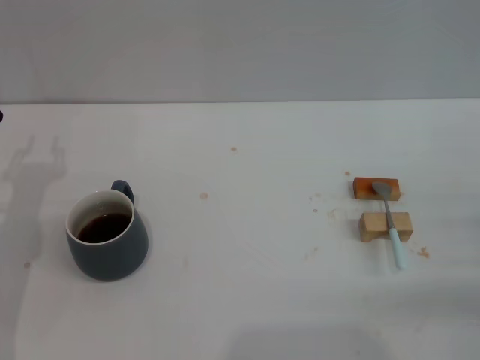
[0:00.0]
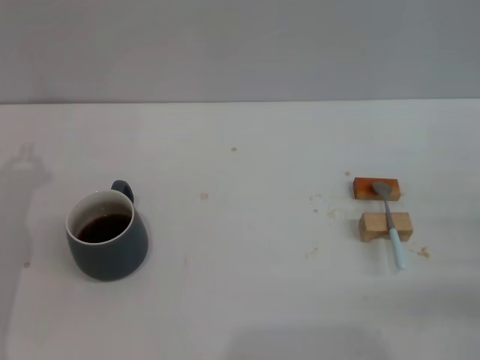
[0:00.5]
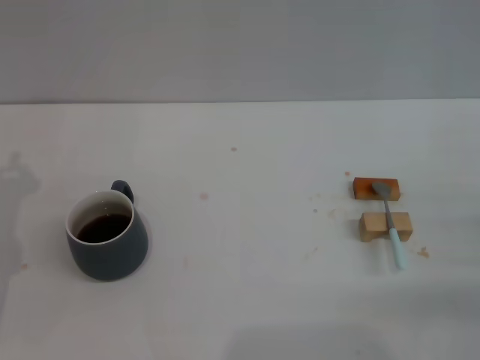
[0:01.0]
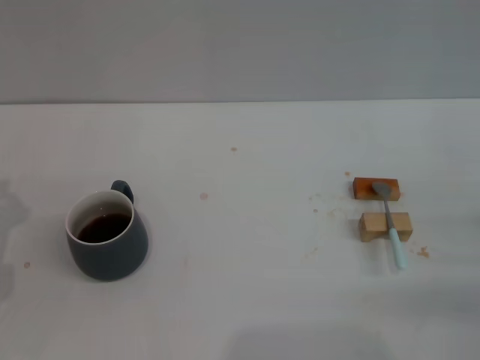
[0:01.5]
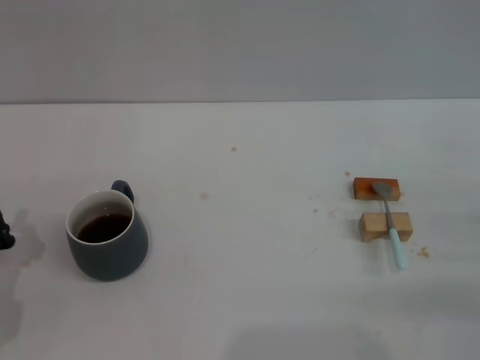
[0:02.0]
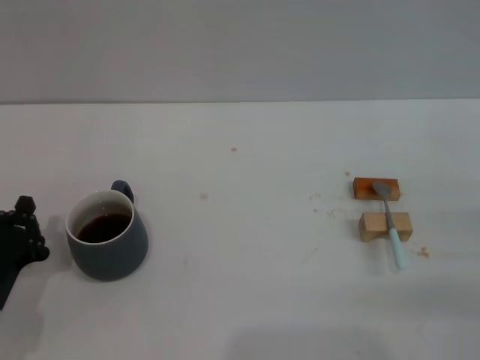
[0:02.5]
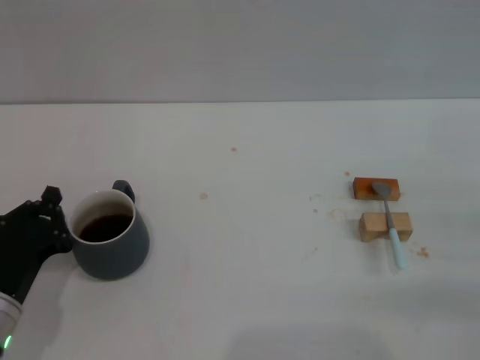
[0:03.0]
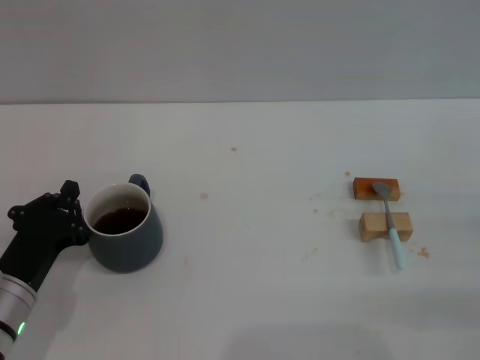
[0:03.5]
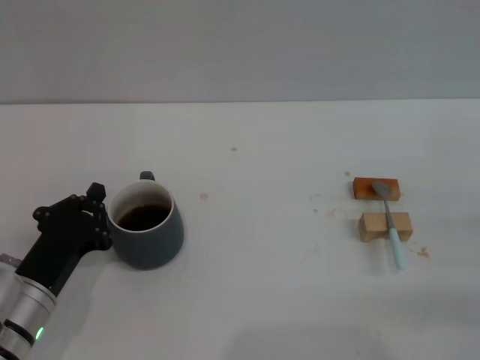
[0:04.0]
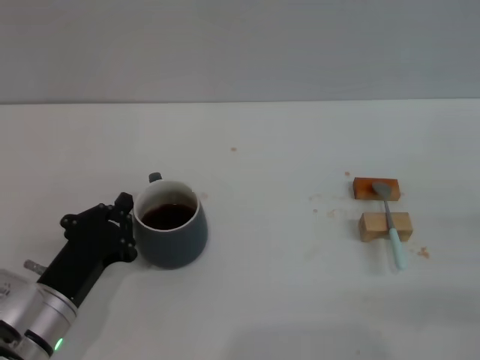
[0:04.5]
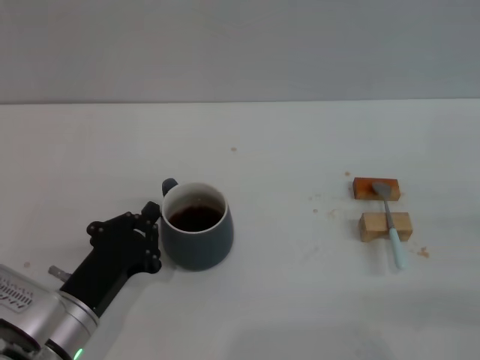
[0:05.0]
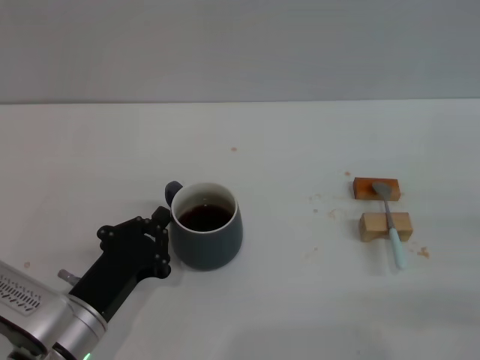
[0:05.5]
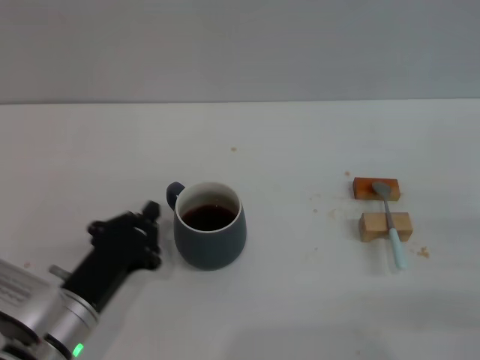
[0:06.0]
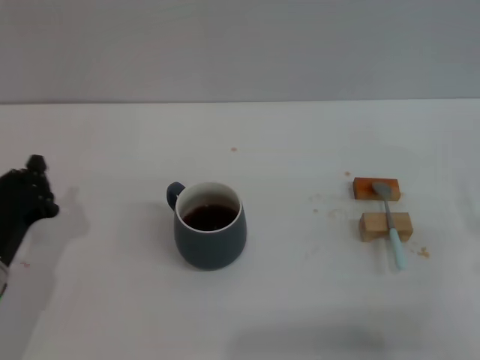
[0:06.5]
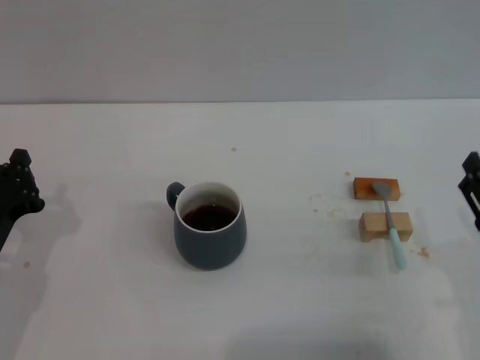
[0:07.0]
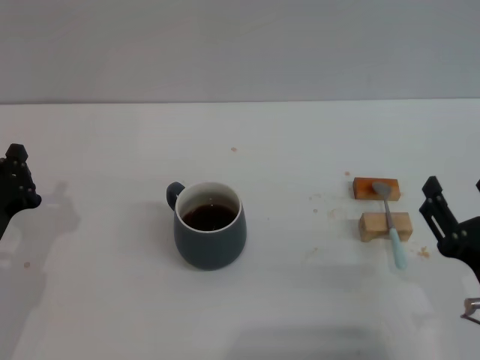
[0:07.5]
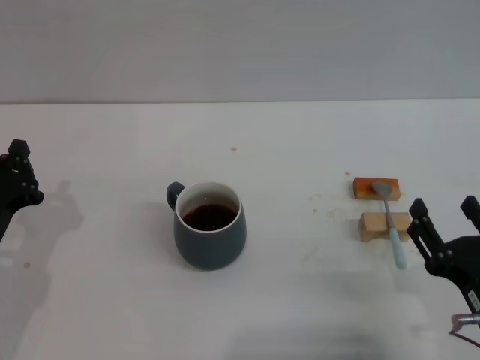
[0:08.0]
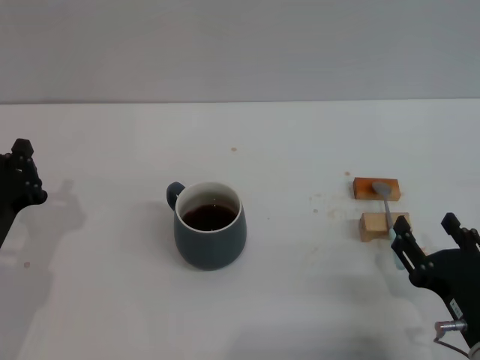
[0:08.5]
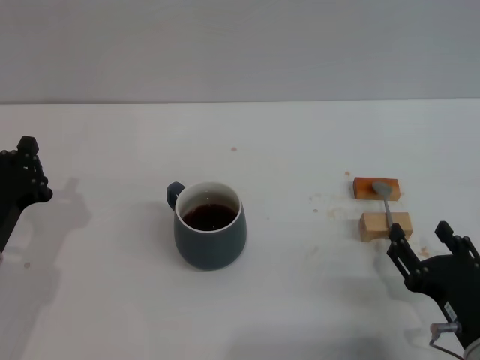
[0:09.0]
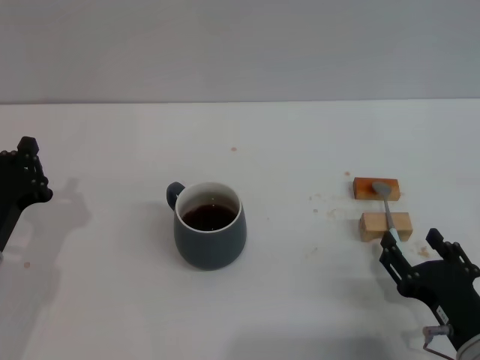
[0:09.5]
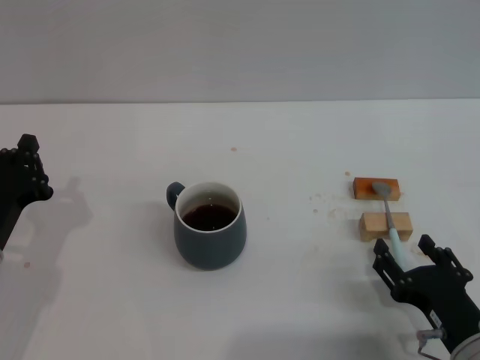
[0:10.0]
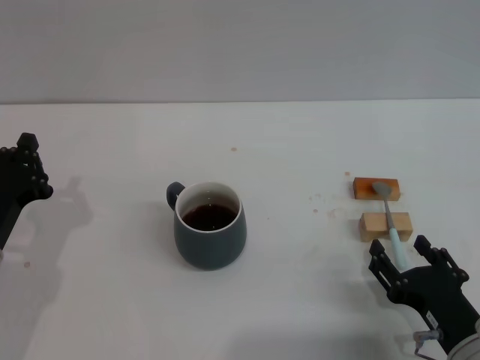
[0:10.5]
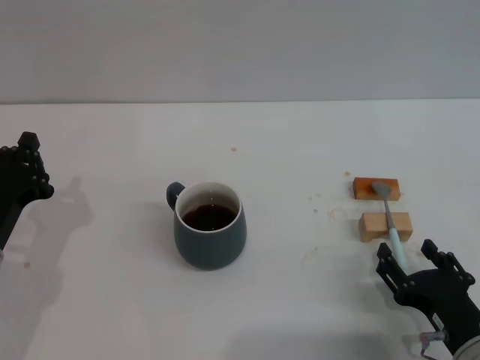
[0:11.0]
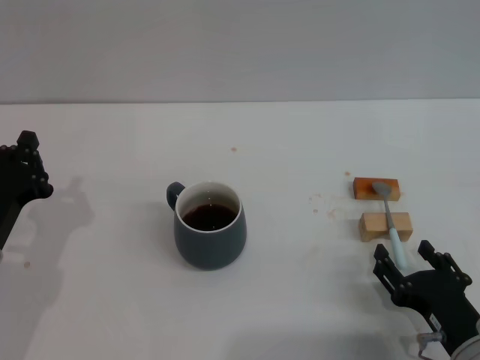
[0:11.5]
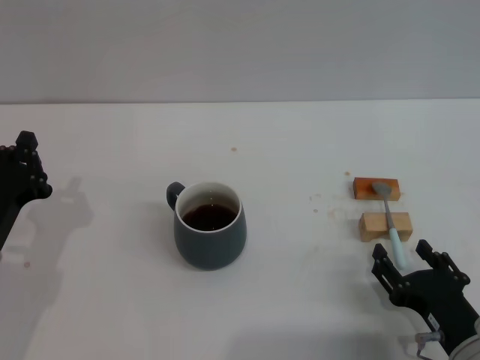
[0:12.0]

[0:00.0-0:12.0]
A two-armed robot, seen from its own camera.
Task of the whole recording: Move the grey cup to the center, lift the blue spoon, stir it three times in the cup, and put the spoon into the cup.
Step, 0:00.0 to 0:06.5: Move the cup with coffee to the center of view with the left gripper.
0:02.0 to 0:04.0: The left gripper shifts roughly 5 cm to the right.
0:04.0 to 0:06.0: There are only small adjustments of the grippers.
0:06.0 to 0:08.0: The right gripper travels to the left, backward and downward by approximately 15 cm, while the left gripper goes some 10 cm to the left.
0:08.0 to 0:10.0: The grippers move only a little.
0:10.0 to 0:12.0: Both grippers stay put.

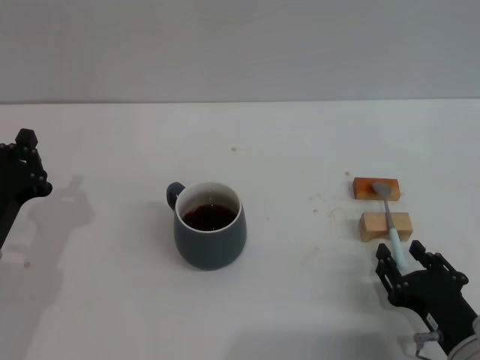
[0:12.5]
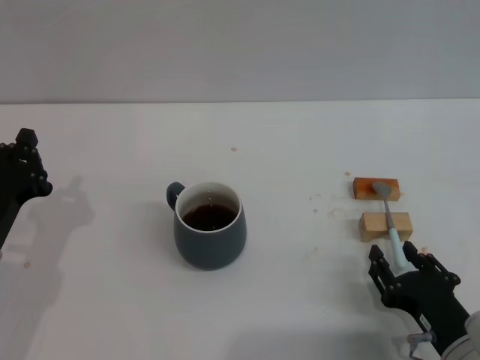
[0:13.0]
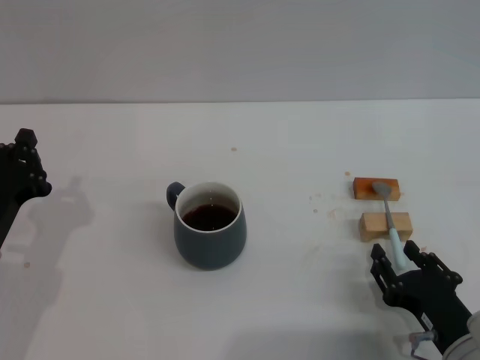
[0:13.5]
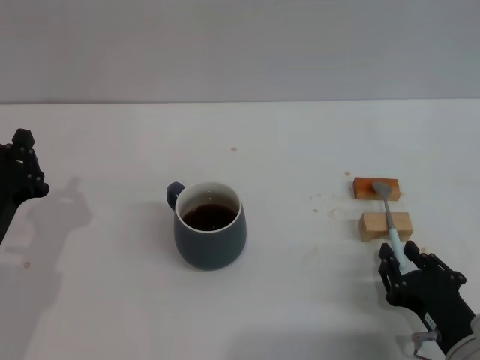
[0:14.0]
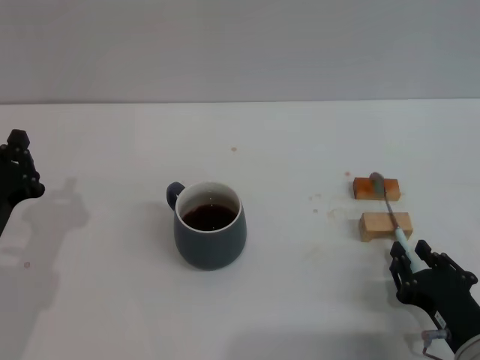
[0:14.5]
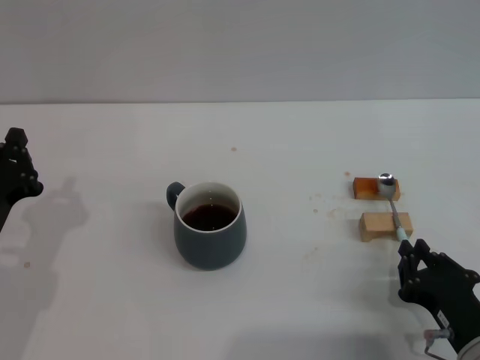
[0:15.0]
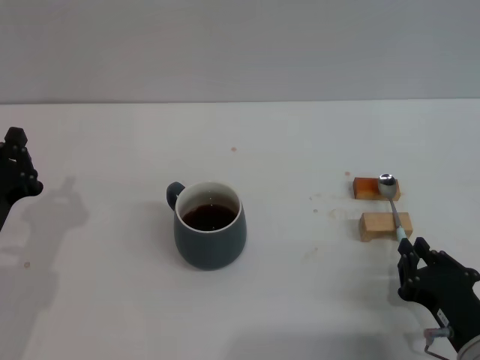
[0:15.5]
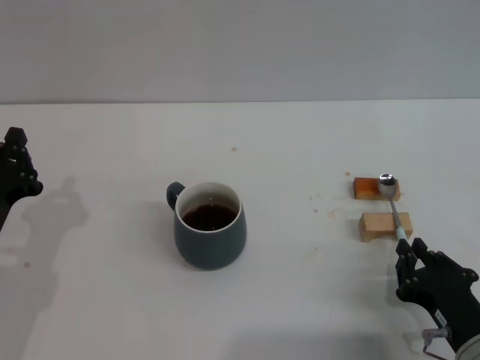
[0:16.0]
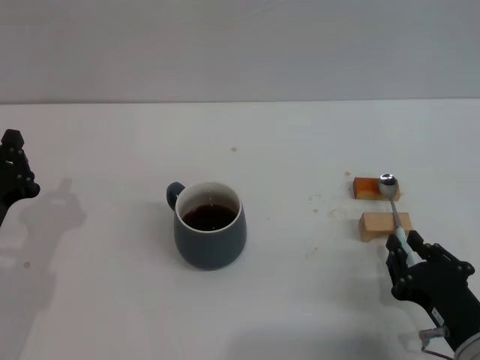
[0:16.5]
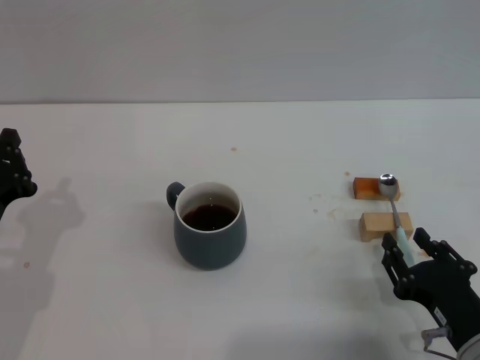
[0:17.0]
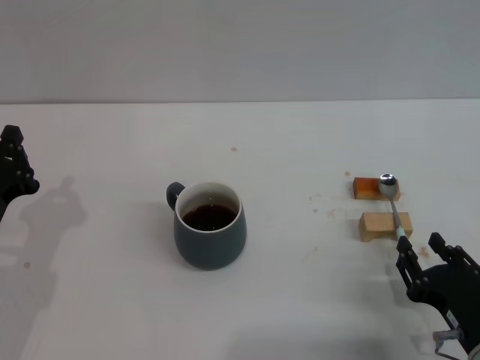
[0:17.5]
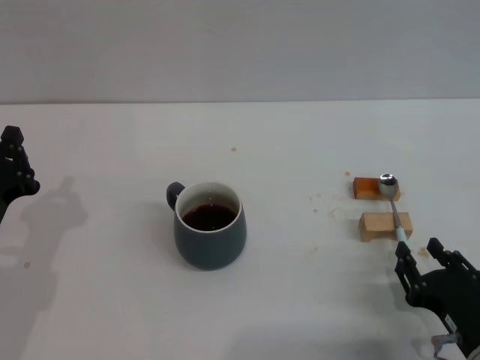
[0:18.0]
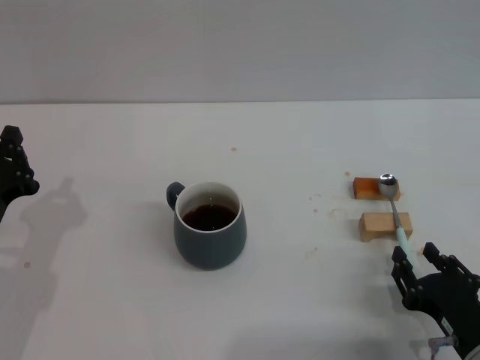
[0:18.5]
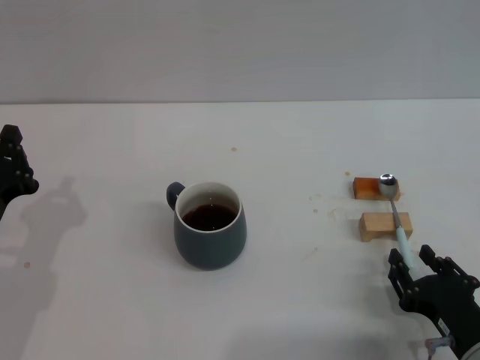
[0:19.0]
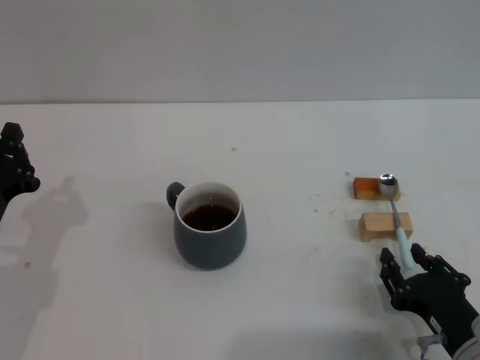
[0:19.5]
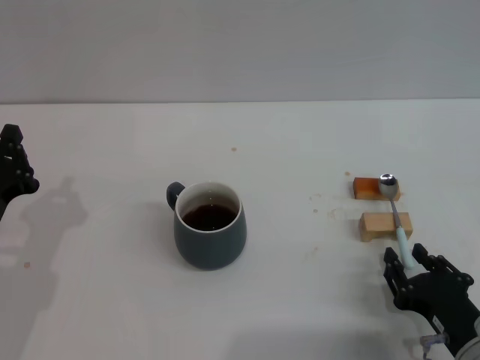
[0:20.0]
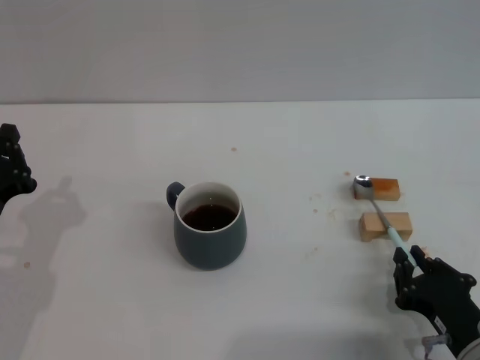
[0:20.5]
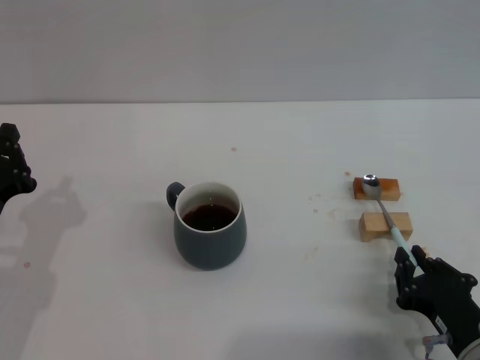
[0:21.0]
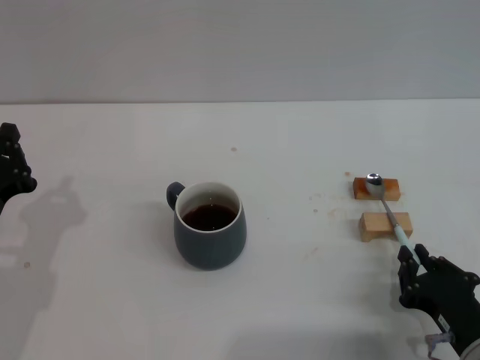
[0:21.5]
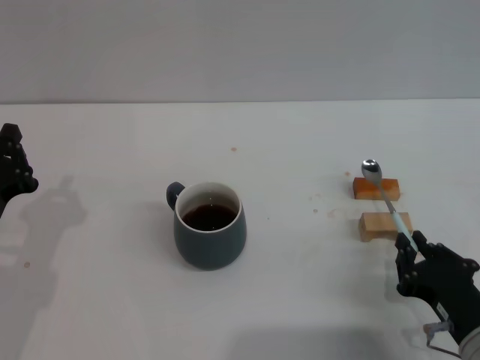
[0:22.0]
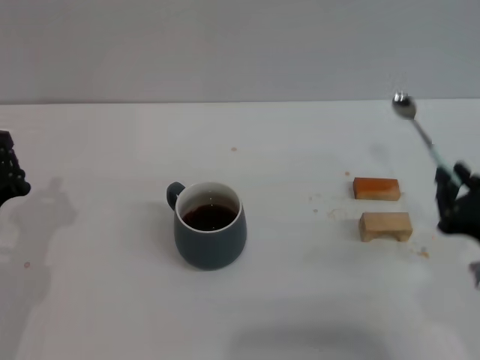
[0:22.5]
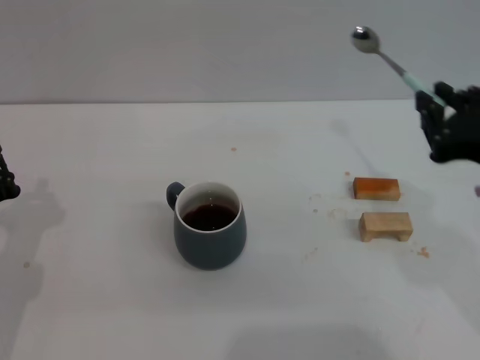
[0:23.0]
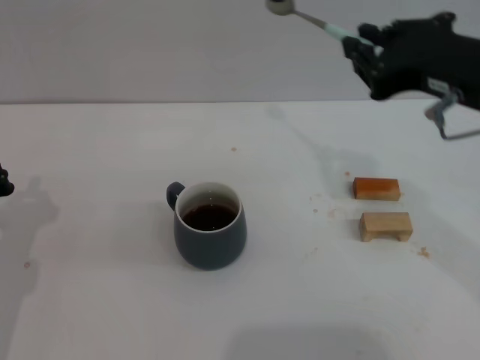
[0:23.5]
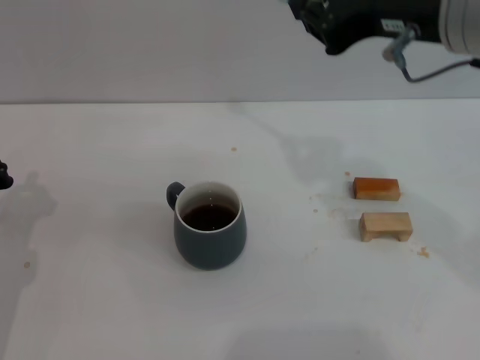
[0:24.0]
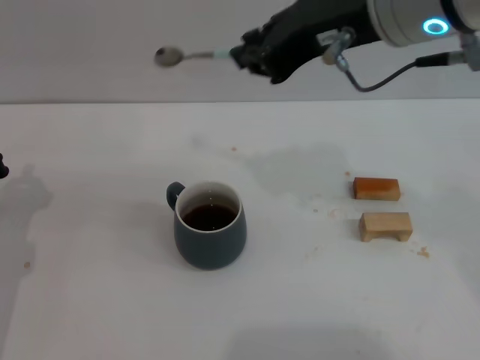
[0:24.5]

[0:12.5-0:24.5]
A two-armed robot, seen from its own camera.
Task of the whole recording: Move the grey cup to the center, lift the blue spoon, stir it three times in the cup, and put the spoon into the cup.
Step, 0:12.5 to 0:22.5: Pick up the spoon with the right gripper.
0:12.5 to 0:14.5: Both grippers stay put.
0:14.5 to 0:16.5: There are only small adjustments of the grippers.
0:16.5 to 0:18.5: The right gripper opens its fingers.
0:18.5 to 0:20.5: The right gripper closes its fingers.
0:20.5 to 0:22.5: The right gripper shifts about 10 cm upward.
0:22.5 to 0:24.5: The right gripper travels upward, forward and to the left by approximately 25 cm.

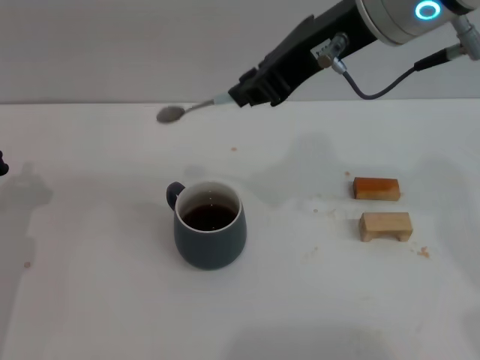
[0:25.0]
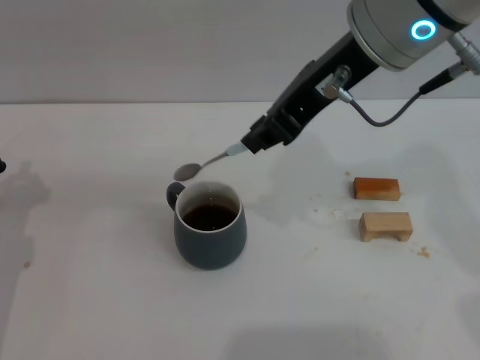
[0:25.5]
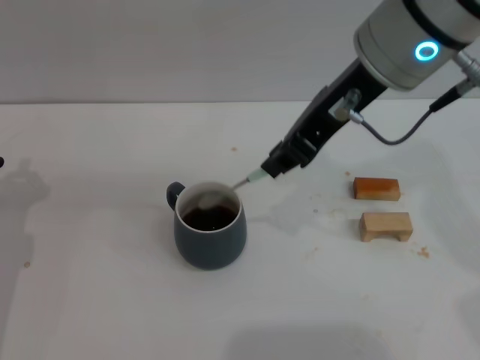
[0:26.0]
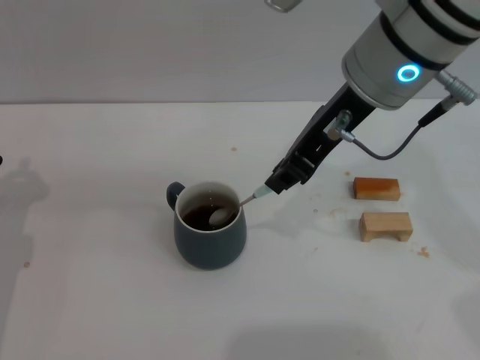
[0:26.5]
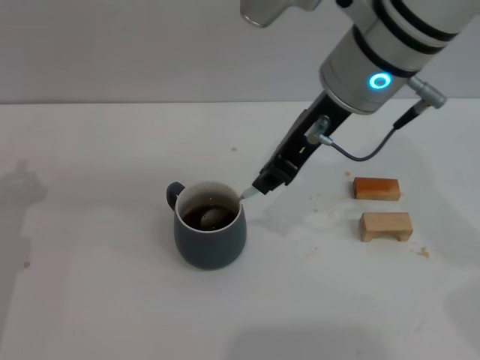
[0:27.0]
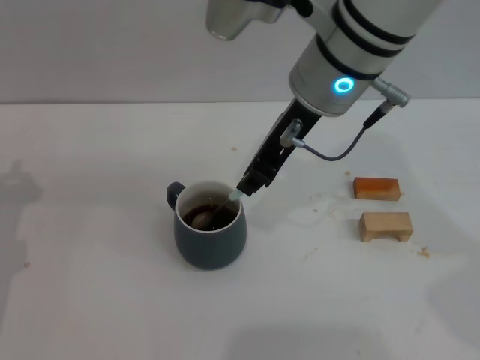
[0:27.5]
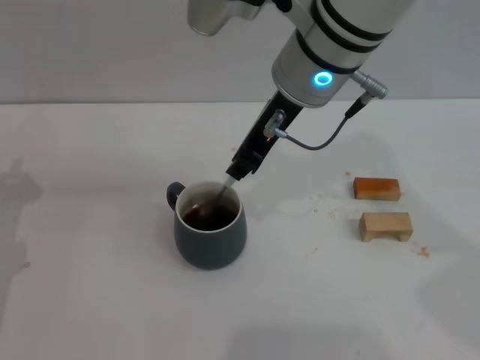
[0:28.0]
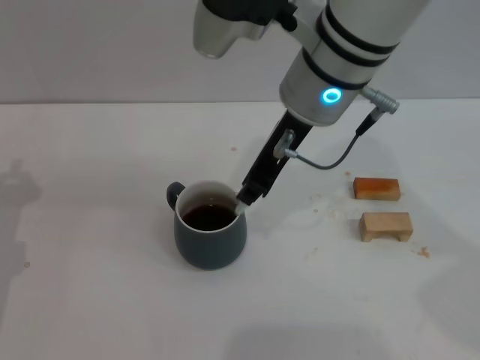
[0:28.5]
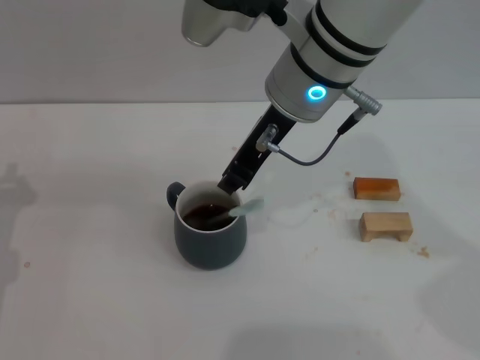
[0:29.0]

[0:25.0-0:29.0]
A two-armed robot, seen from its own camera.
Task of the whole recording: Move the grey cup to the center, lift the blue spoon, stir it three times in the cup, and put the spoon into the cup.
Step, 0:25.0 to 0:28.5: Stir the coffee in the cup with the right gripper.
0:25.0 to 0:27.0: The right gripper is displaced downward by some 5 cm.
0:27.0 to 0:29.0: The grippers move only a little.
